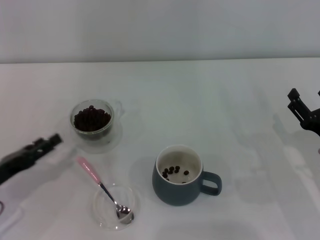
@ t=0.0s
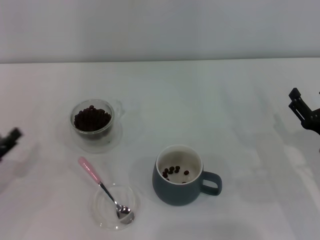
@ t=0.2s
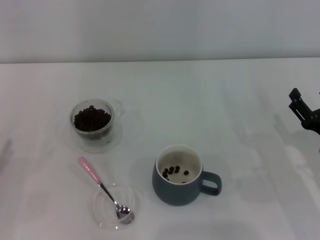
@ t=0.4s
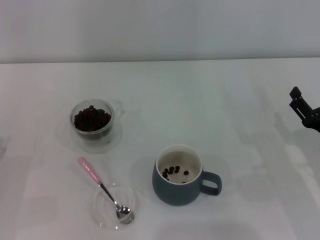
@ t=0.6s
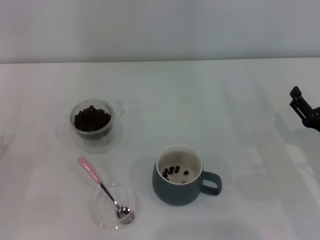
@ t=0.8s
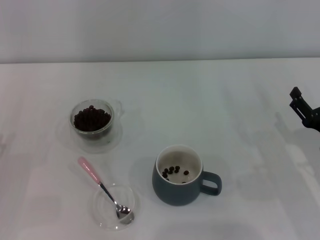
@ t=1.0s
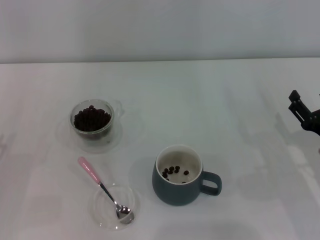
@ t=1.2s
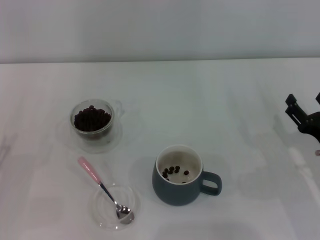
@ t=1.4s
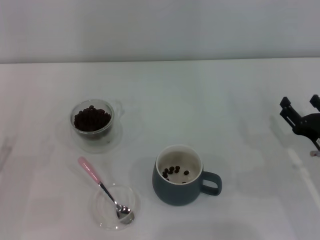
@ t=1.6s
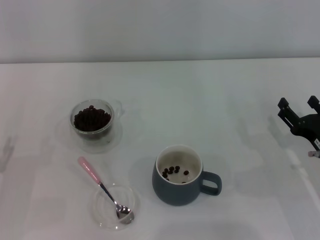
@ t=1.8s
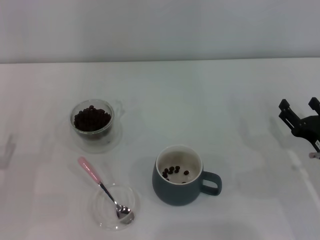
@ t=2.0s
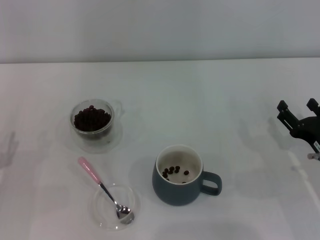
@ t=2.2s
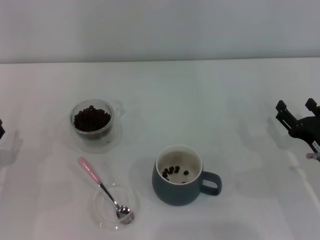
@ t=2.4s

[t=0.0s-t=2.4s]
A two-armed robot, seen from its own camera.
Task of the whole recording: Use a pink spoon to take out the coffee beans from the glass and pour them into the gray cup.
t=0.0s to t=1.2s: The left gripper ends up roughly 5 cm from where it was.
t=1.2s to t=2.4s: There are only small adjustments of the grippers.
